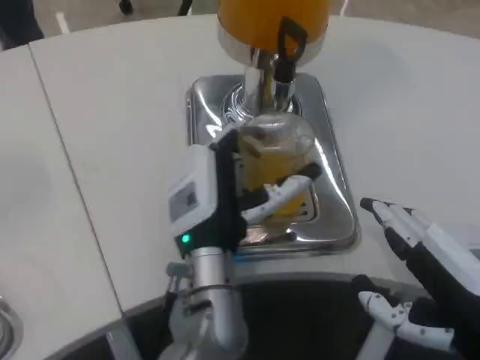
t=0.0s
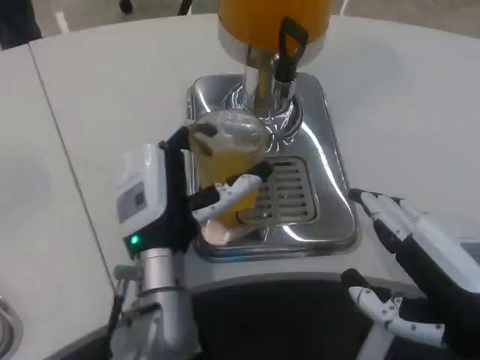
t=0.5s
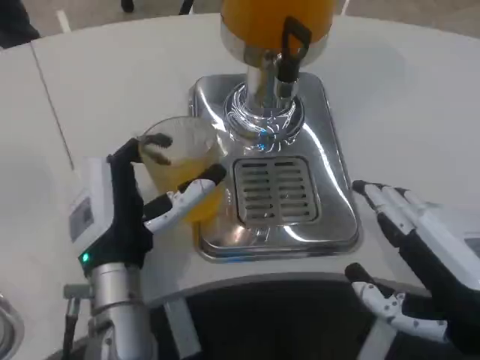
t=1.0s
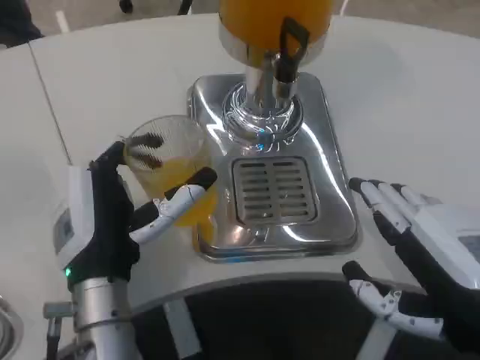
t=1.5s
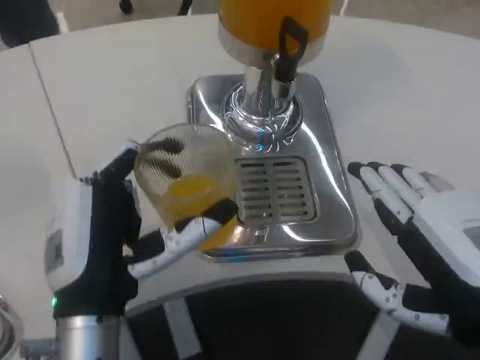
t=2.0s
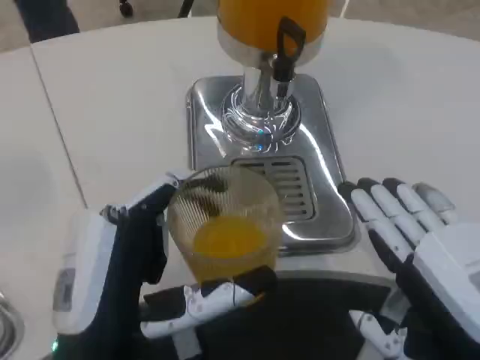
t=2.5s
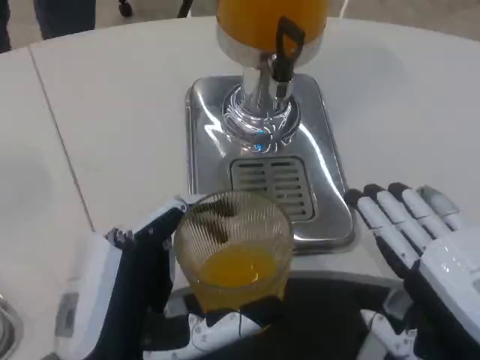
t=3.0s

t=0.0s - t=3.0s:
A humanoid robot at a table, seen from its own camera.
Task of the whole recording: Grasp the cup under the faucet to collect the drink, then remove the cup.
t=0.0s - t=1.5s: The left hand goes approximately 10 cm to the left.
t=1.5s - t=3.0s: The left hand moves backward, some 10 cm.
